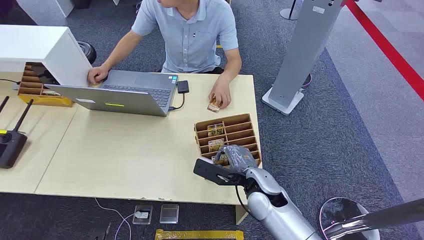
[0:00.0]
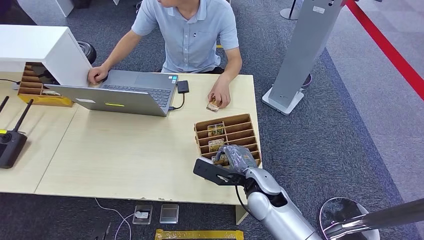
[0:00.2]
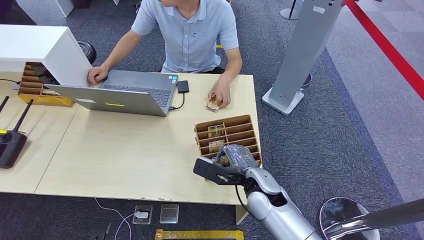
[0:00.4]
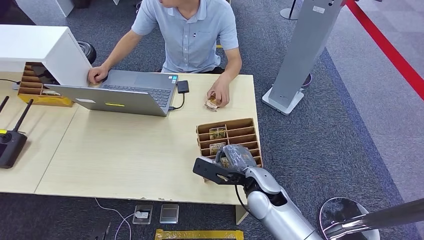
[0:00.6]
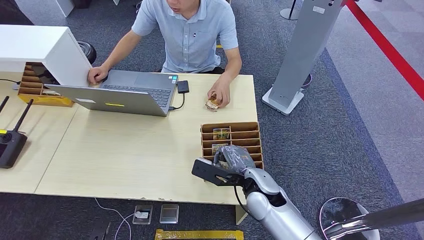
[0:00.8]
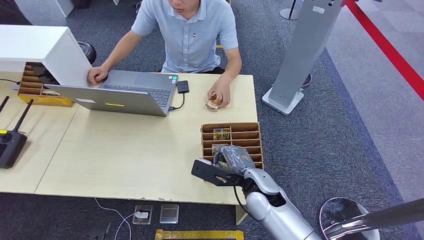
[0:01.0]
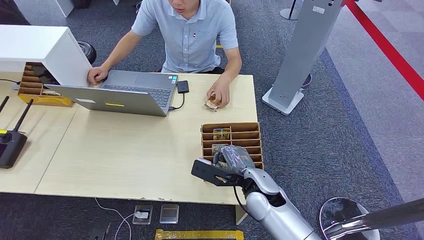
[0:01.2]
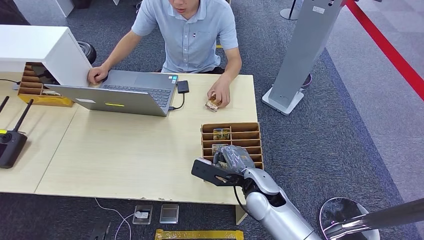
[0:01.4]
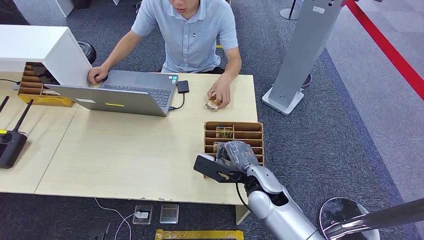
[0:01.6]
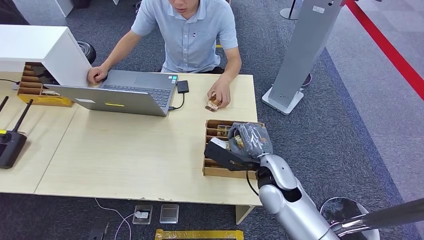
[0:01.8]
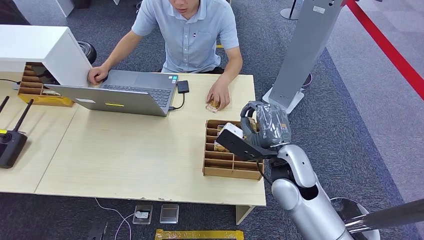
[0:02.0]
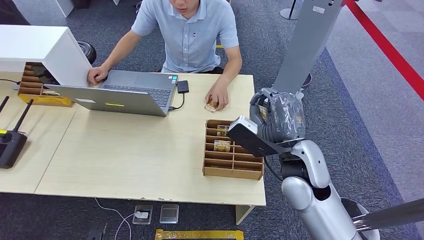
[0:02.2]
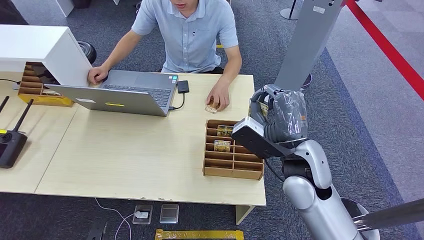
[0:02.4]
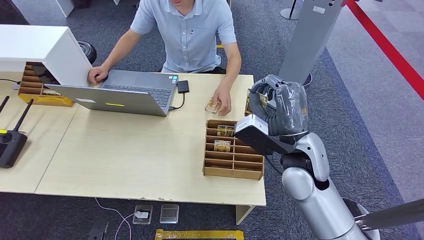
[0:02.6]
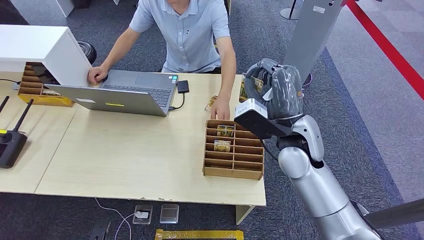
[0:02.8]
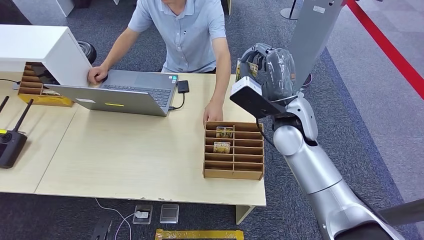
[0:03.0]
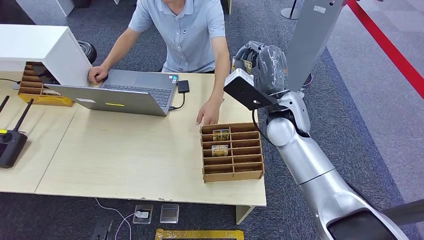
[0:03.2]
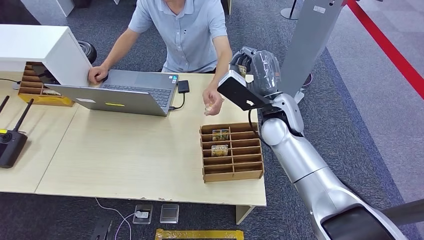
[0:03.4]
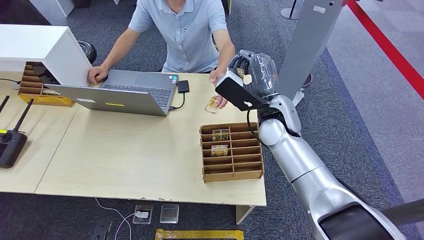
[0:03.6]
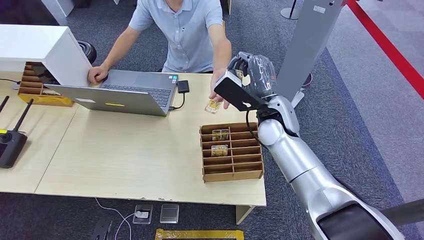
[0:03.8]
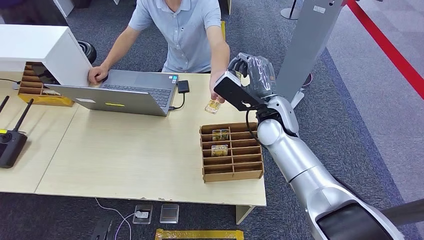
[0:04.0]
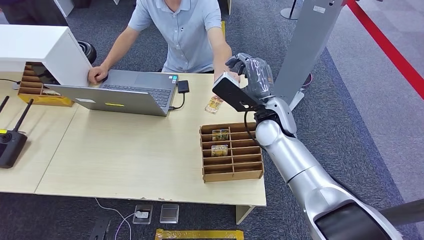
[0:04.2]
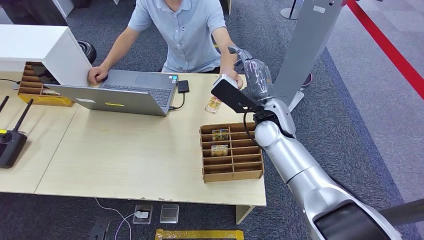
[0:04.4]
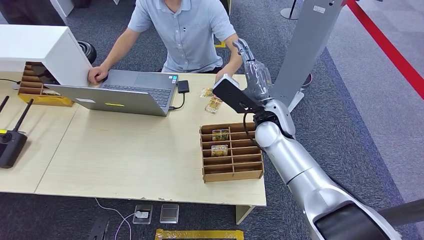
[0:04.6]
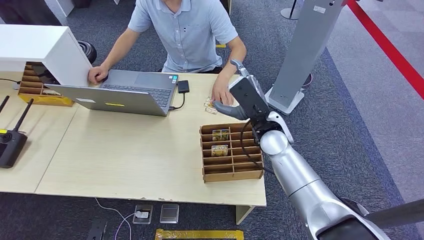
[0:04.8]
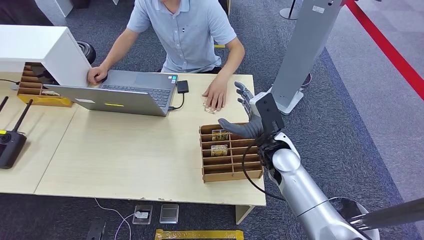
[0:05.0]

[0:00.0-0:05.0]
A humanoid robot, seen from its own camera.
Step, 0:00.0 to 0:02.0: Pick up the key card from the card box.
Step, 0:04.2 to 0:05.0: Hand the key card to the target.
0:01.6 to 0:03.4: The right hand travels upward and forward by roughly 20 cm.
0:03.4 to 0:05.0: The right hand moves downward, some 10 cm.

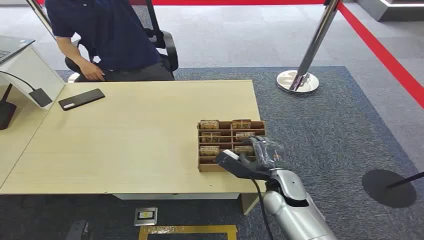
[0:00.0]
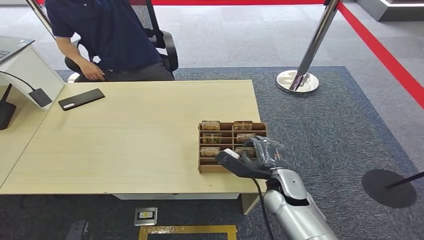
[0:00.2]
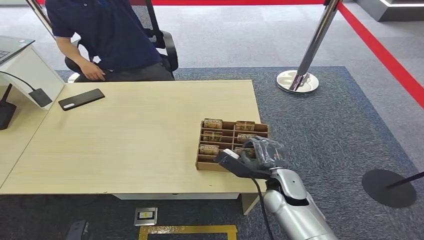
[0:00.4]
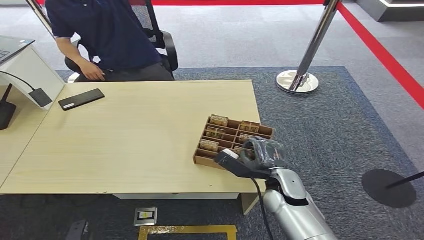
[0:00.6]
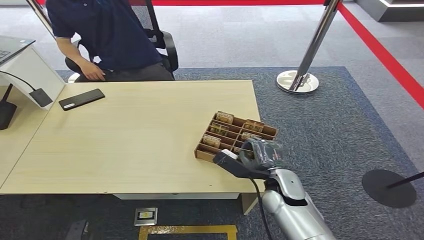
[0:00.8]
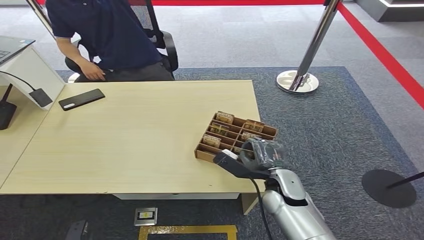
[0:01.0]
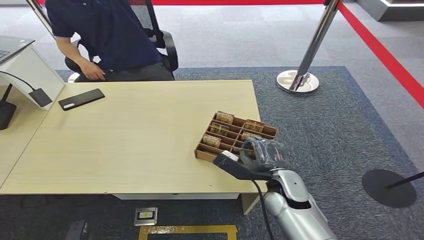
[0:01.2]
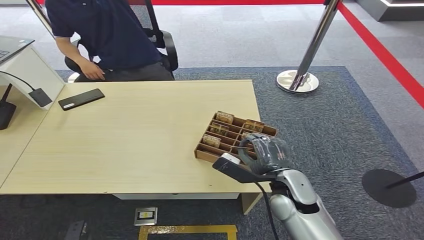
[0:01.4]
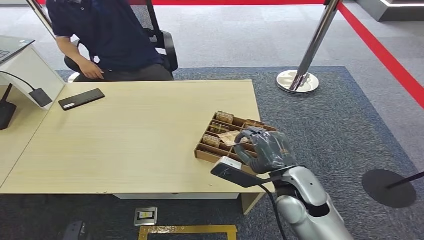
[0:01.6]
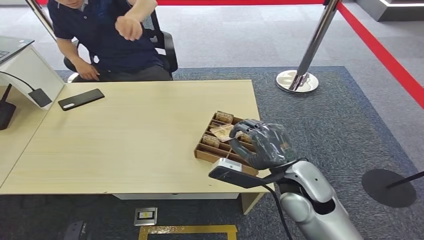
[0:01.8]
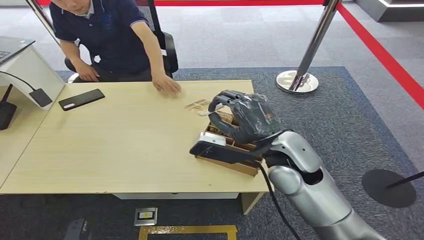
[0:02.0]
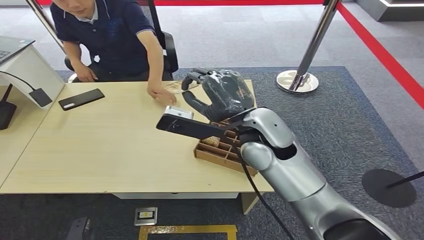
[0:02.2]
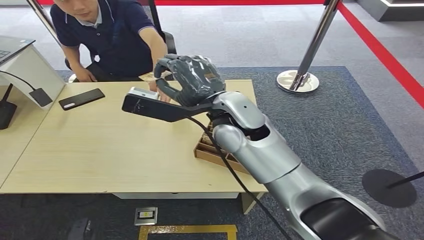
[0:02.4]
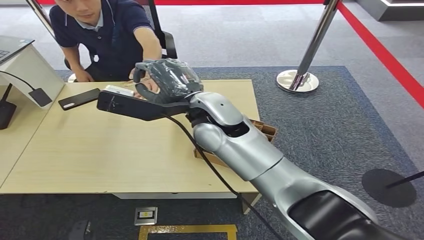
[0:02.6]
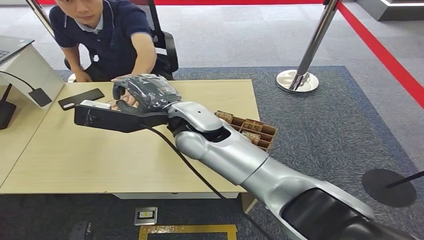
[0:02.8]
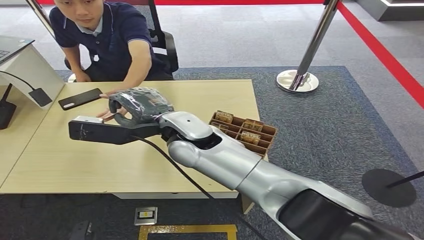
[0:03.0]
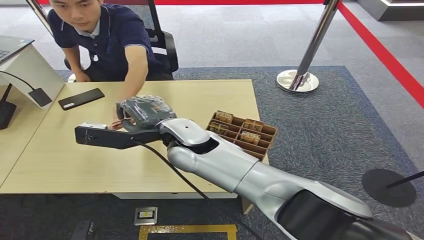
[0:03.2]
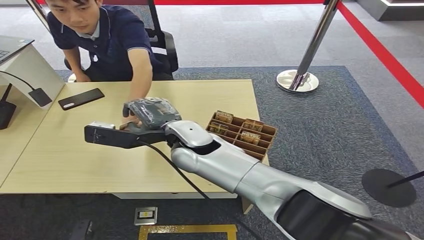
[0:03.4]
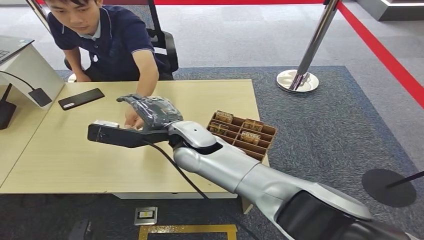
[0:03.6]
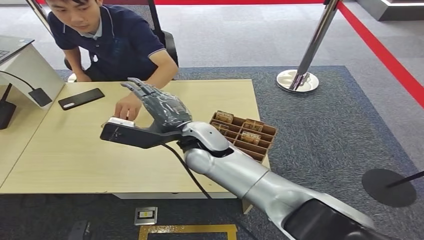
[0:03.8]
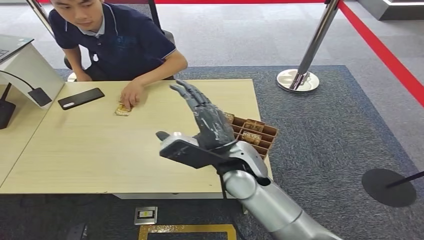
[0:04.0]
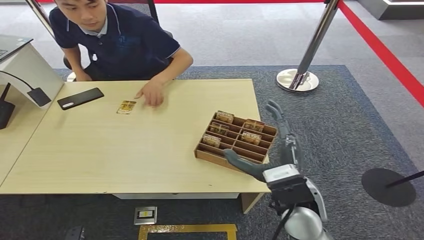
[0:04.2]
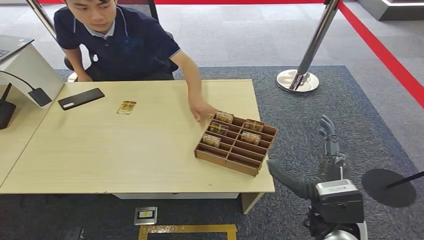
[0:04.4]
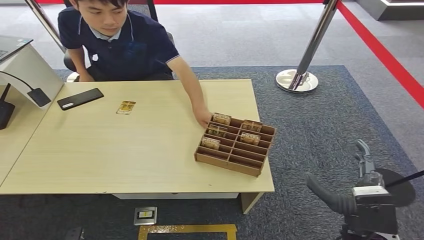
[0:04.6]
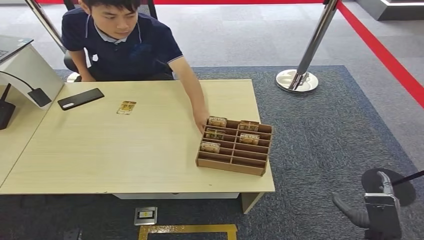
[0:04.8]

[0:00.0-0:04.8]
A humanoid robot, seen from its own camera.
Step, 0:00.0 to 0:02.2: Pick up the key card from the card box.
Step, 0:02.6 to 0:04.8: Hand the key card to the target.
